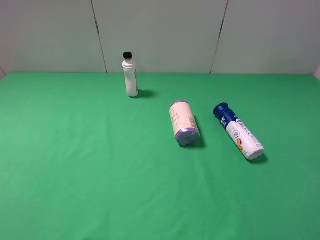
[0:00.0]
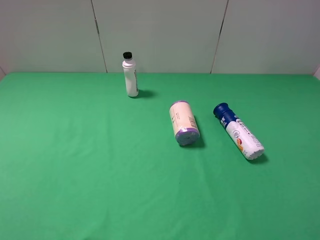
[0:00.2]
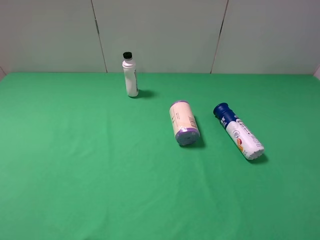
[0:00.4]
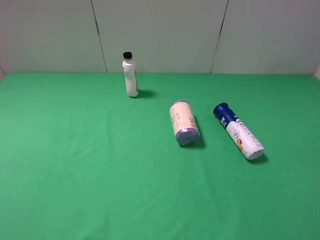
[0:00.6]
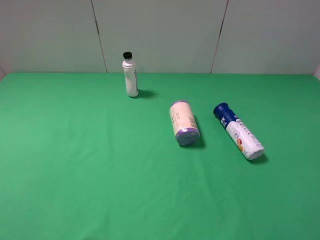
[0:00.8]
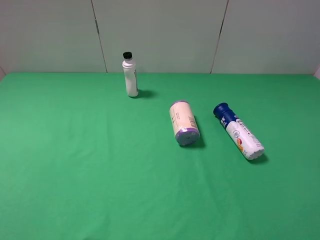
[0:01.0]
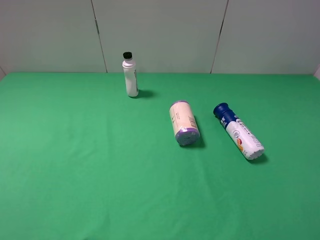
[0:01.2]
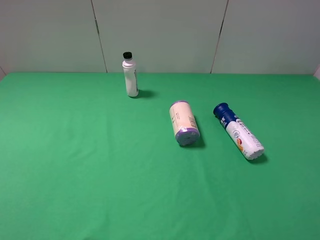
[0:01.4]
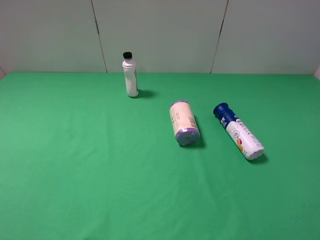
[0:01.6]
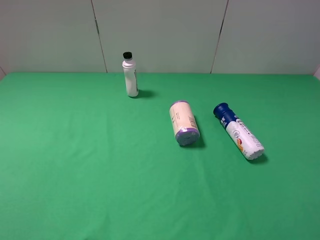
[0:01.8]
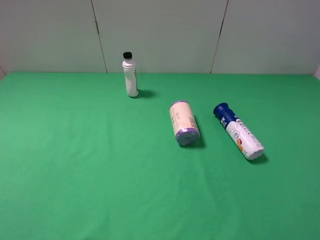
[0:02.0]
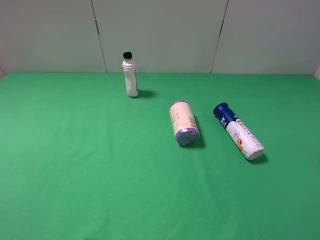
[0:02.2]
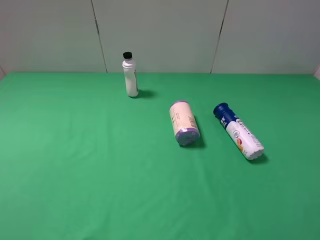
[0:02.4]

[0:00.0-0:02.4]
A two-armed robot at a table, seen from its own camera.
Task of the whole recording: use the left gripper to pick up the item and transfer it from the left gripper to the right gripper.
0:01.2 to 0:02.4: Both grippers stay put.
